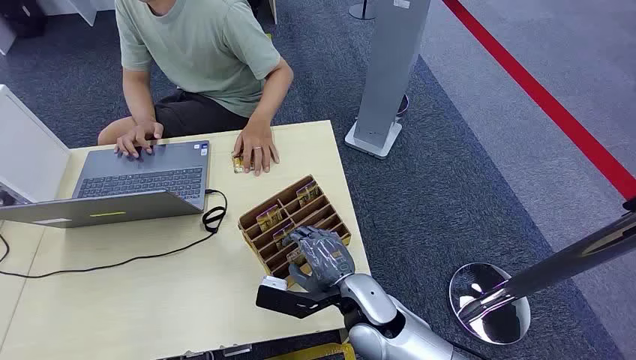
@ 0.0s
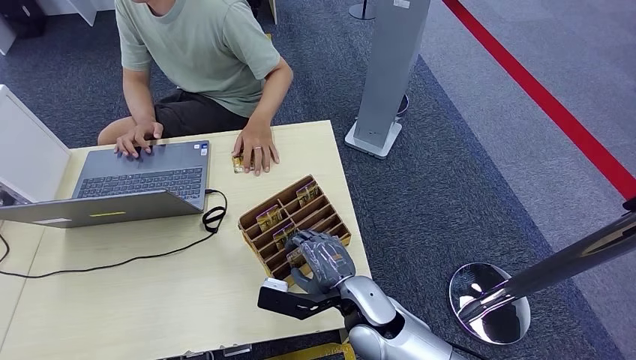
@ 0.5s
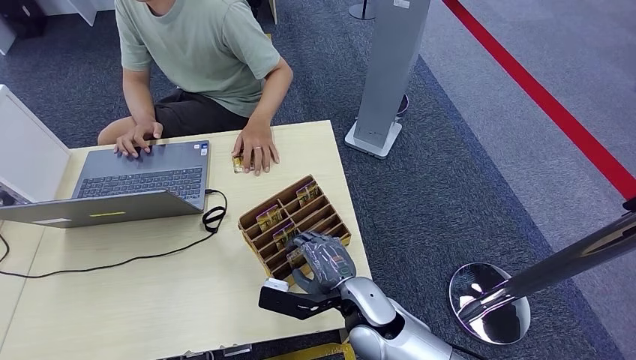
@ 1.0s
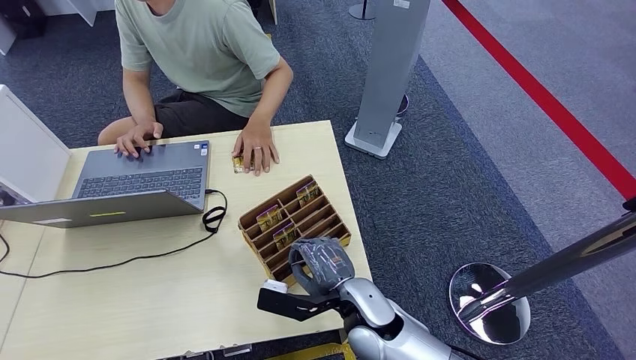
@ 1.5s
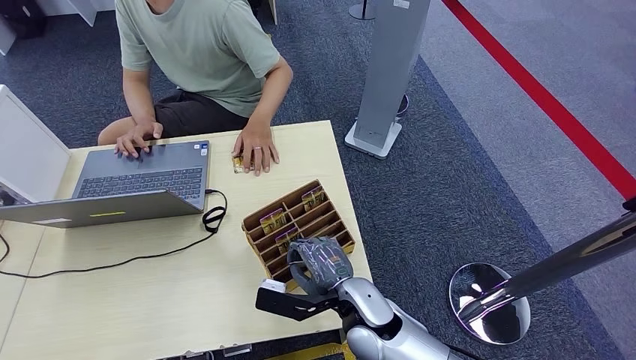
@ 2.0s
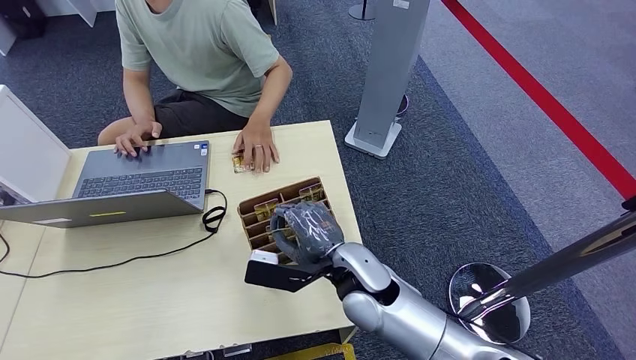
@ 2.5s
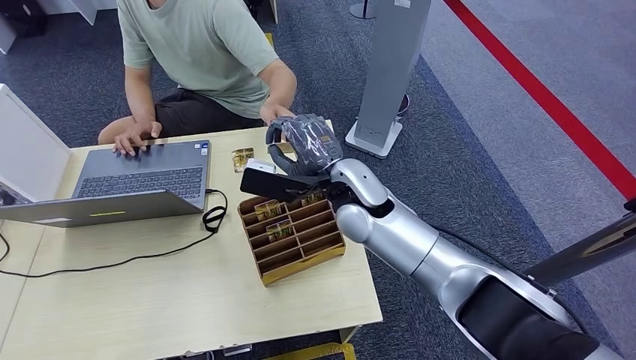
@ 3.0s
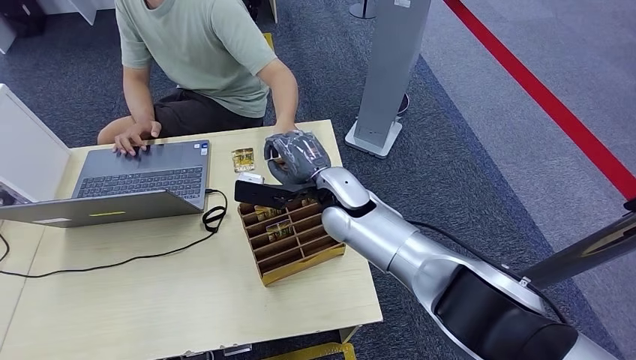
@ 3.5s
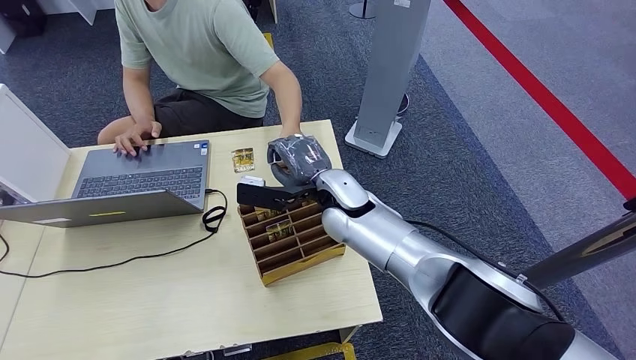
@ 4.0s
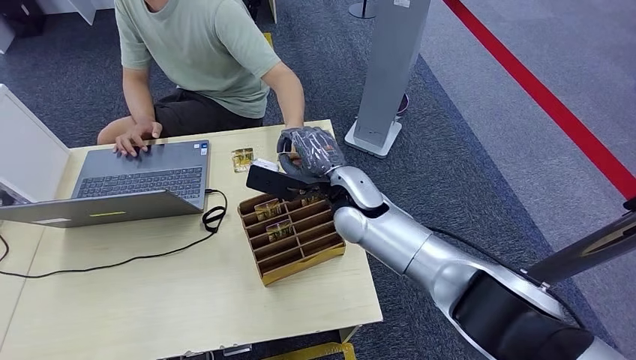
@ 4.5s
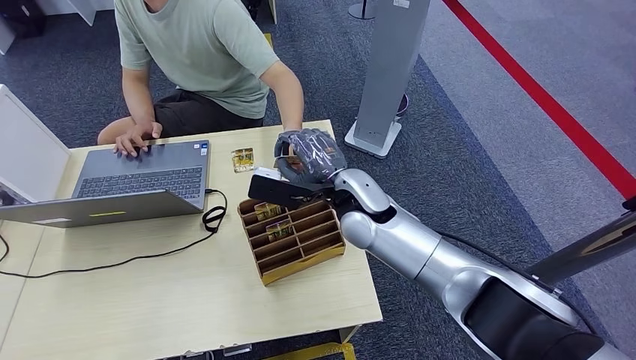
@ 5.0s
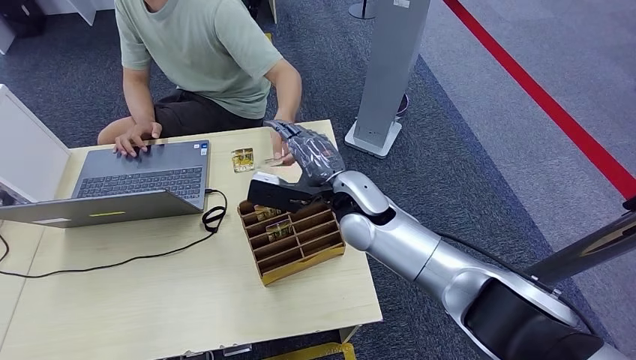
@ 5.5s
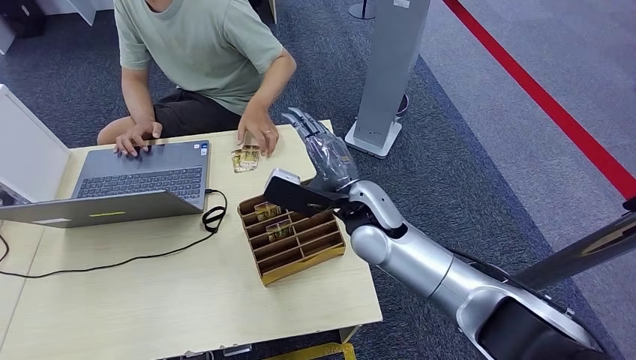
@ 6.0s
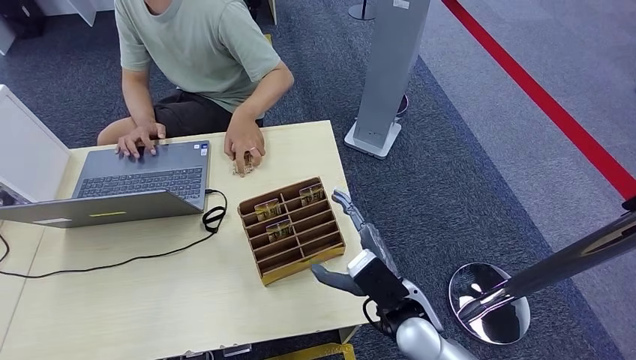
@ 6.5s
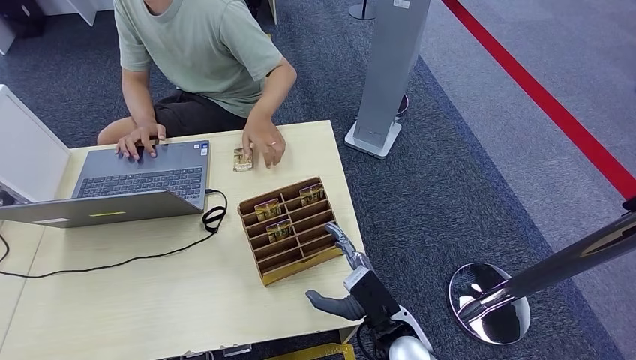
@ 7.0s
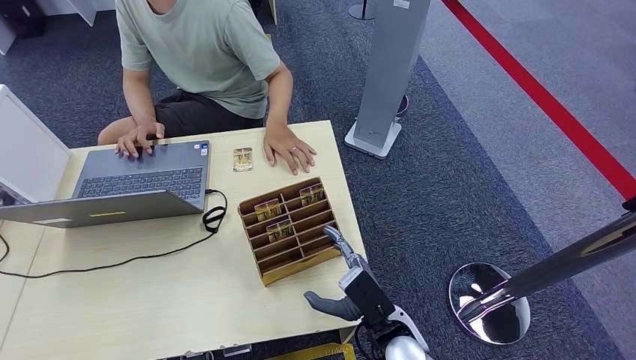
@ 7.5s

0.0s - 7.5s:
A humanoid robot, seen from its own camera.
Step, 0.0s - 2.5s: Pick up the room card from the card holder.
Step, 3.5s - 7.5s: Hand the room card to the target.
2.0s - 4.0s: The right hand heads forward and upward, covering some 20 cm.
4.0s - 5.5s: The right hand shifts by about 5 cm.
5.5s - 7.5s: The right hand is displaced backward and downward by roughly 25 cm.
